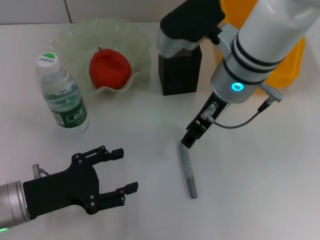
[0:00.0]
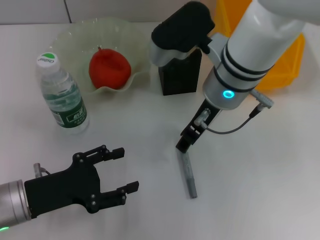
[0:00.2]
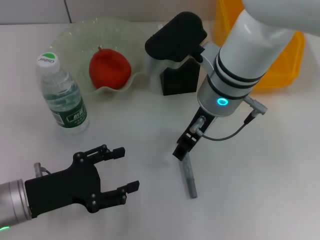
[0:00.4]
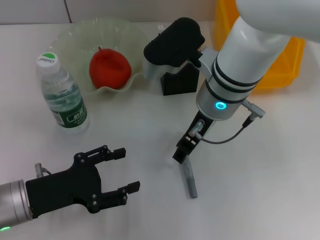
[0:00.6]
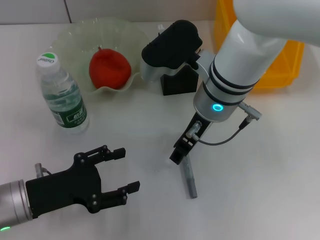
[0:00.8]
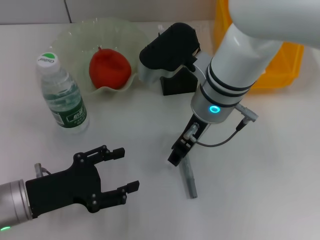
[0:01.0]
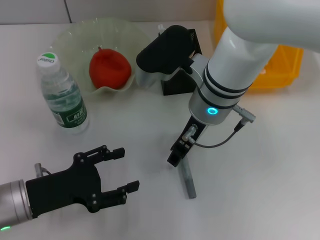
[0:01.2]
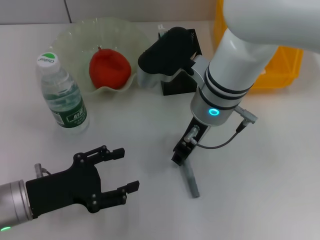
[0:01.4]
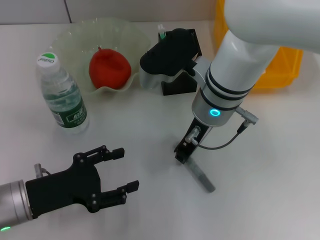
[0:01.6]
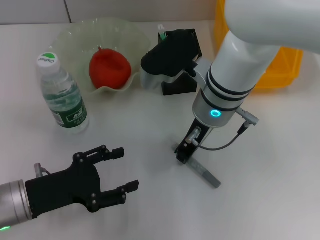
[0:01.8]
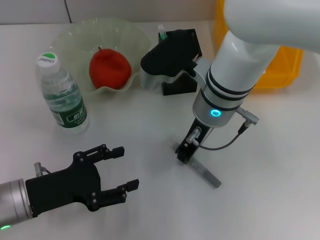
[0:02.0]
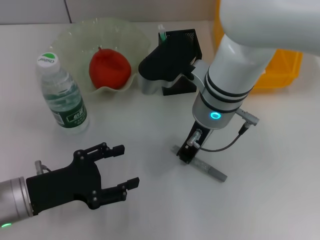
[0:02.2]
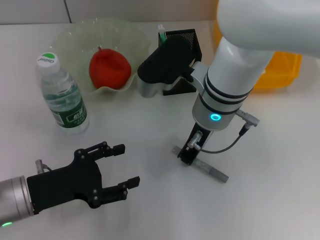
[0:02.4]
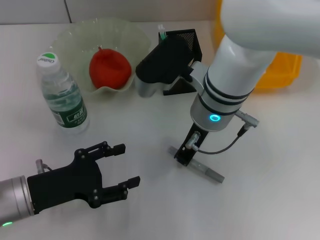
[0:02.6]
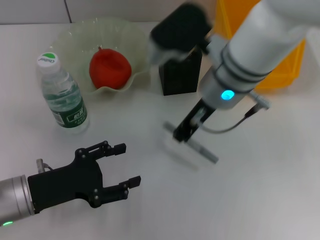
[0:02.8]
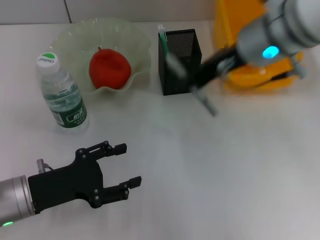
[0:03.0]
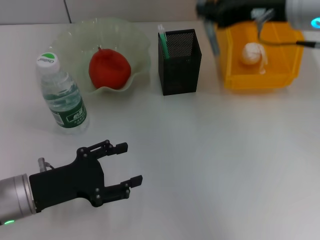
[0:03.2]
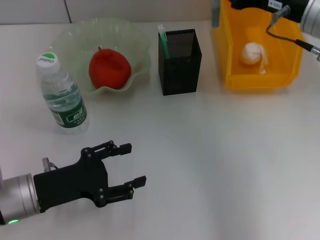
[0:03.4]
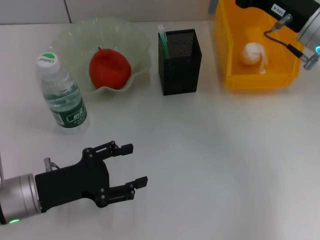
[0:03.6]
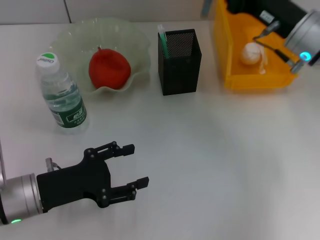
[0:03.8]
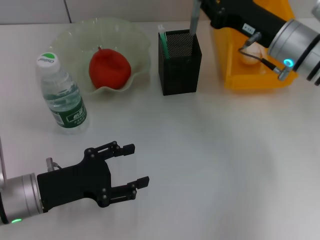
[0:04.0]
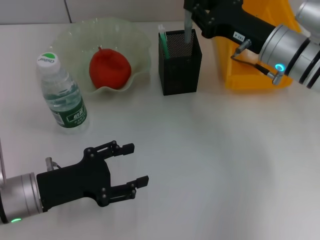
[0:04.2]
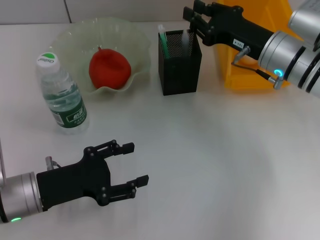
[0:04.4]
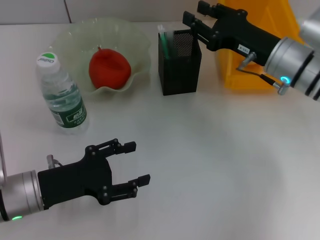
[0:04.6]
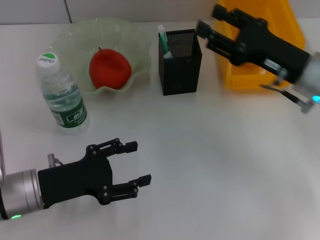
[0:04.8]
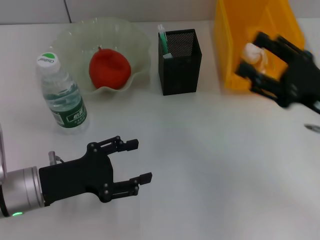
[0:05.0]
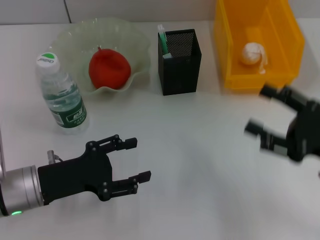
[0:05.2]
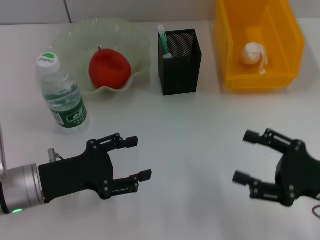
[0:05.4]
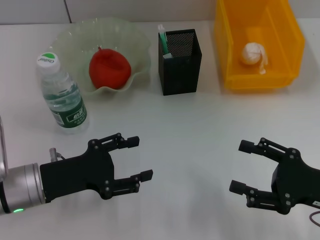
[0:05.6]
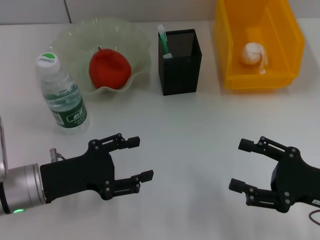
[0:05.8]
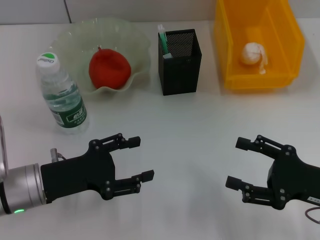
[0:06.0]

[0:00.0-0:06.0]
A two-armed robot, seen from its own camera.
Step, 0:00.0 to 0:02.2: Grab the gray glue with the right hand.
Step, 0:02.4 to 0:04.6: Place the gray glue into the pen holder with the right hand.
0:00.0 to 0:01.6: The grippers stay close to where they were, moving slightly.
0:01.6 to 0:03.0: The right gripper heads upward and to the right, covering some 10 cm, and closes its fingers.
0:03.0 to 0:04.4: The right gripper heads downward and to the right, covering about 15 cm.
0:04.4 to 0:06.0: The right gripper heads backward and to the right, covering roughly 20 cm, and opens its fingers.

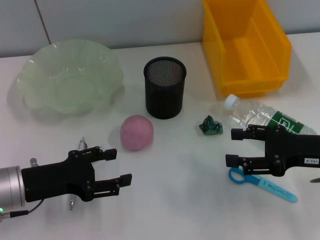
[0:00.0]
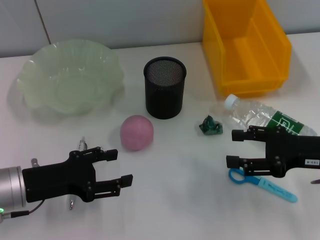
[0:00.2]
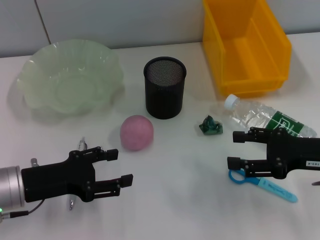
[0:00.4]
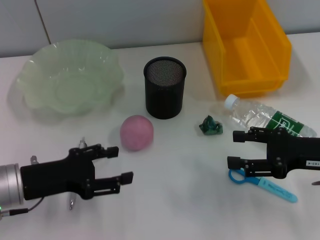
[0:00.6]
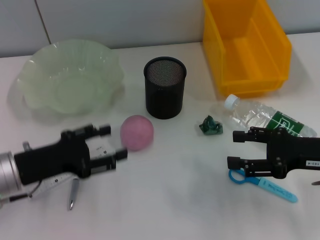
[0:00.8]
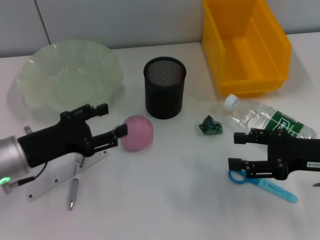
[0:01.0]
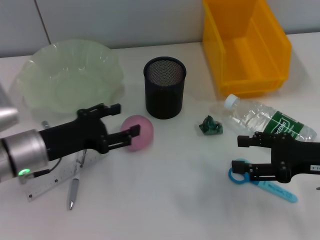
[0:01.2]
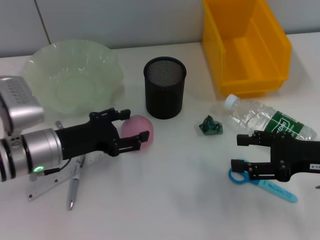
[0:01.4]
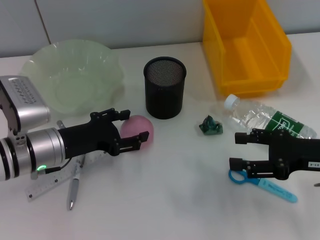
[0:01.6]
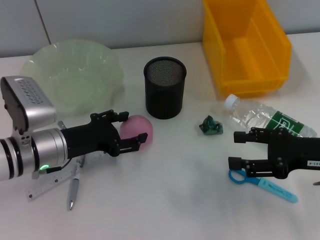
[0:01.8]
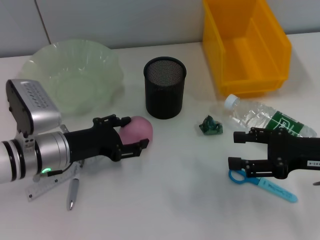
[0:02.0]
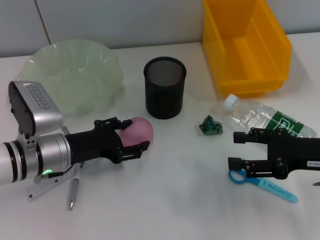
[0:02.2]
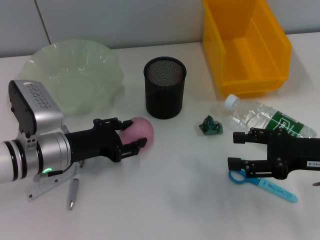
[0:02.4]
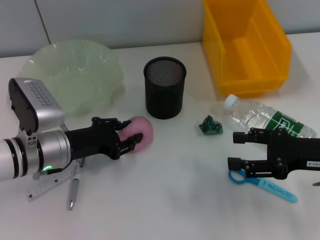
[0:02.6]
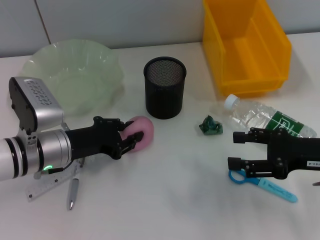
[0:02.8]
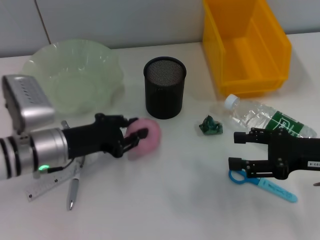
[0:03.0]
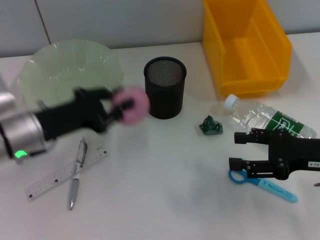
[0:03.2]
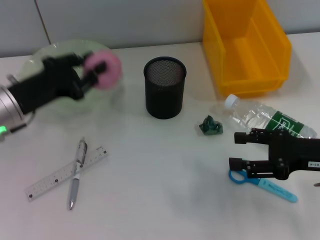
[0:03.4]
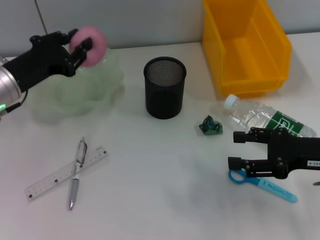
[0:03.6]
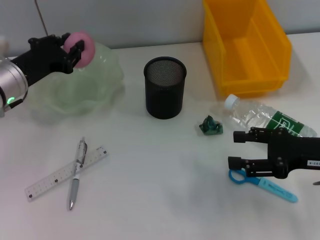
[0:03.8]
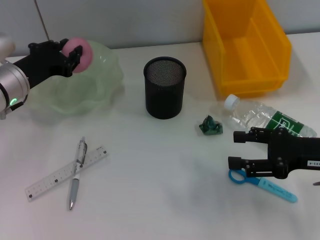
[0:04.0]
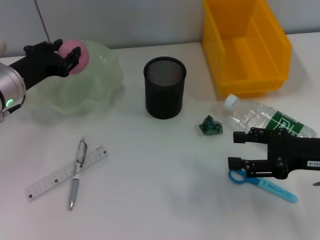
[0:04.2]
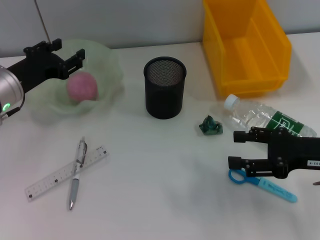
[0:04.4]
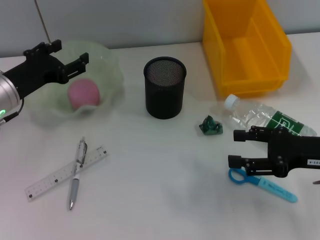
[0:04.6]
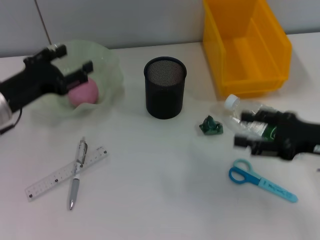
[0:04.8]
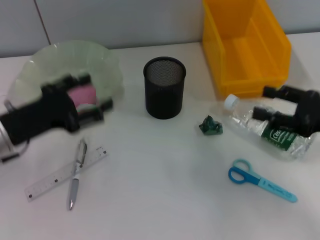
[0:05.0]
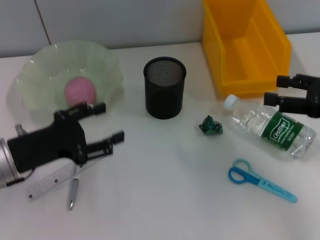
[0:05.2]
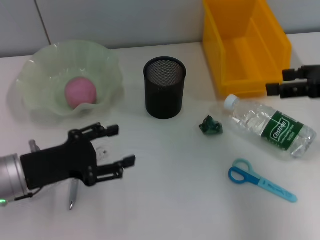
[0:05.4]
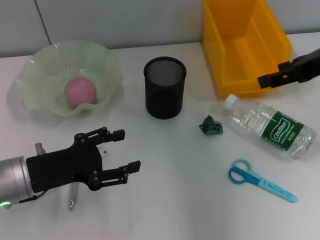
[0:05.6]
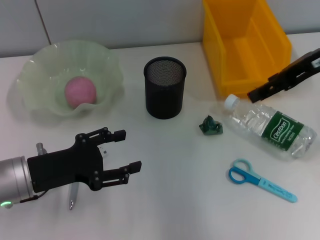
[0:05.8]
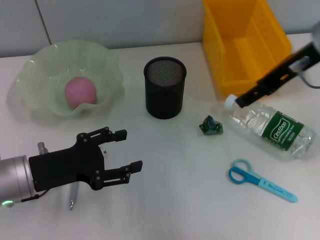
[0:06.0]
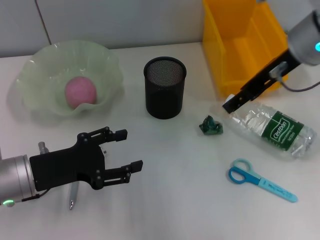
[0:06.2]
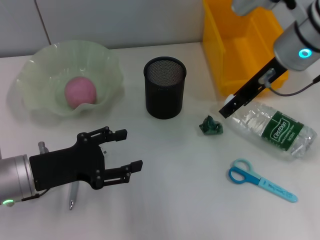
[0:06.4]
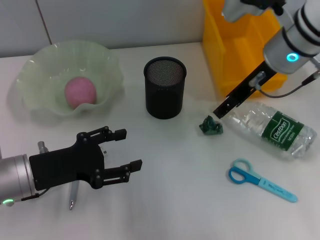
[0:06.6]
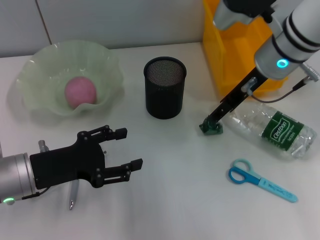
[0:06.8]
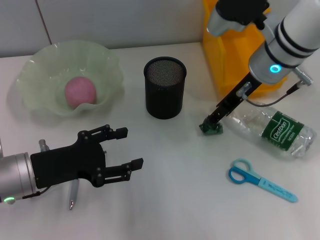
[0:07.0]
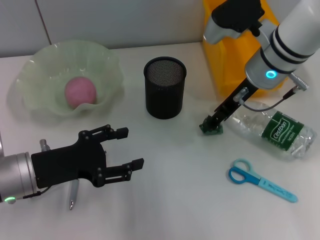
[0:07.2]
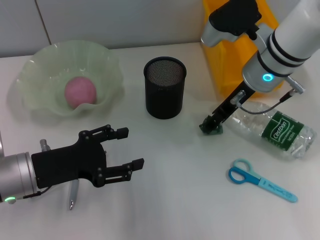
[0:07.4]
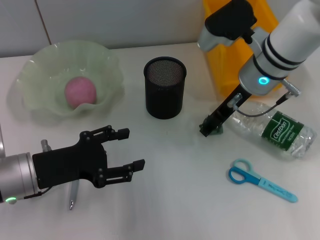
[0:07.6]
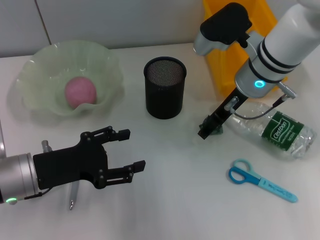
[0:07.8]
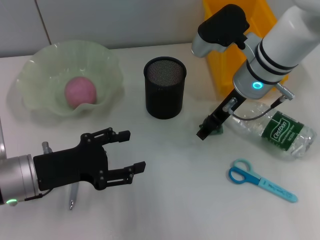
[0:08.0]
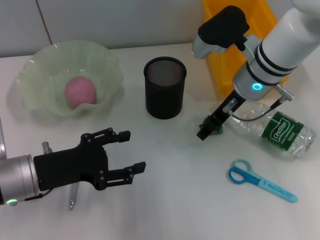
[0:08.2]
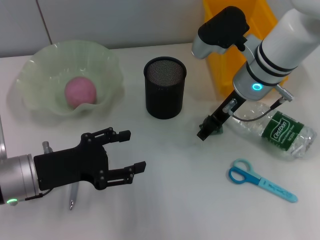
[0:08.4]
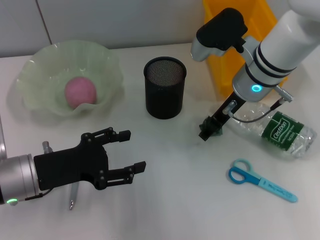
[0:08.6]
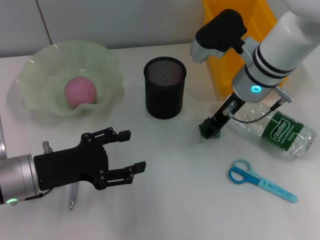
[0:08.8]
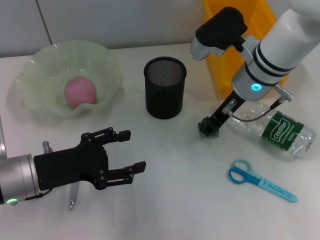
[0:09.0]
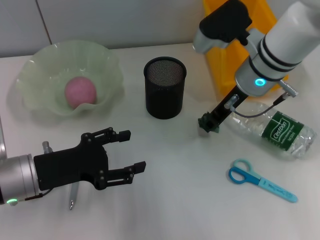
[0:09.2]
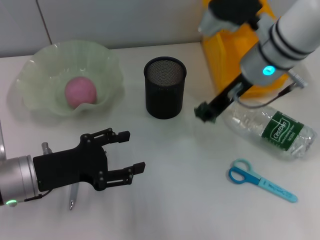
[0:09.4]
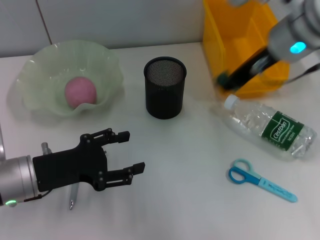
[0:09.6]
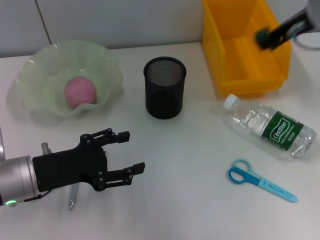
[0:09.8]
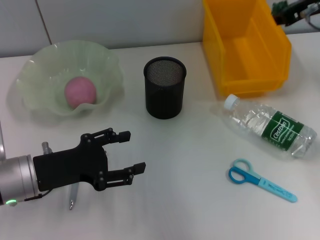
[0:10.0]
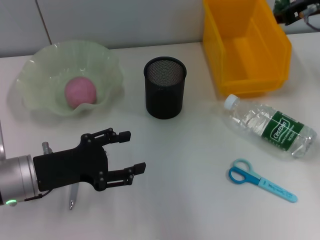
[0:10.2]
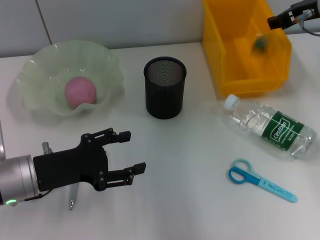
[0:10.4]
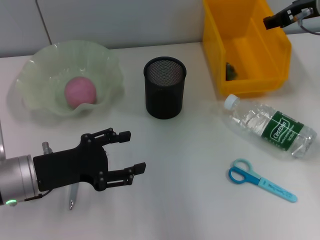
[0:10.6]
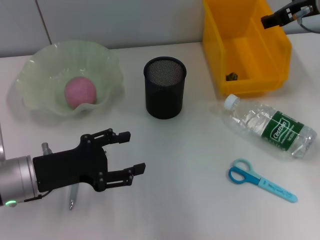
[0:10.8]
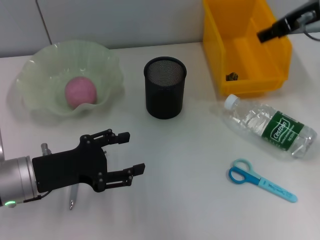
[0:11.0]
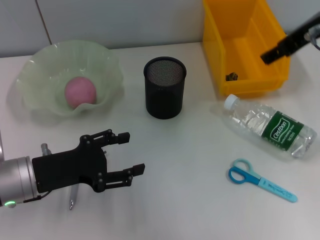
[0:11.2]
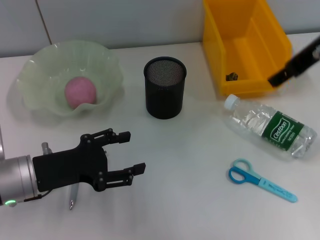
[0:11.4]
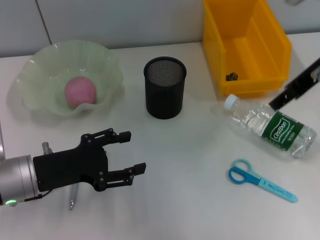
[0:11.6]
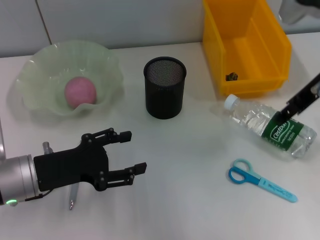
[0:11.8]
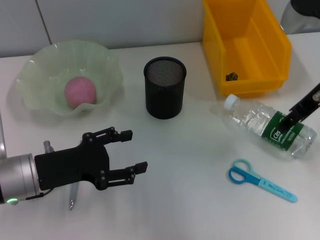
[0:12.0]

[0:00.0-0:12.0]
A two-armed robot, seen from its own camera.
Step, 0:00.0 to 0:02.6: Grab the peach with the left hand.
Step, 0:02.8 to 0:04.4: Place the peach into the fruit bowl with the left hand.
Step, 0:04.8 to 0:08.8: Grab the plastic with the right hand.
Step, 0:09.0 to 0:10.8: Place the plastic into the trash can with the right hand.
0:00.0 to 0:01.6: The left gripper heads forward, covering some 5 cm.
0:01.6 to 0:03.0: The left gripper closes.
0:03.0 to 0:04.4: The left gripper travels forward and to the left by some 10 cm.
0:04.4 to 0:06.0: The left gripper shifts some 10 cm backward, and opens its fingers; the right gripper heads upward, forward and to the left, covering about 20 cm.
0:06.0 to 0:07.6: The right gripper moves downward and to the left, about 10 cm.
0:07.6 to 0:09.0: The right gripper closes its fingers.
0:09.0 to 0:10.4: The right gripper travels to the right and upward by roughly 15 cm.
0:10.4 to 0:12.0: The right gripper goes about 5 cm backward, and opens its fingers.

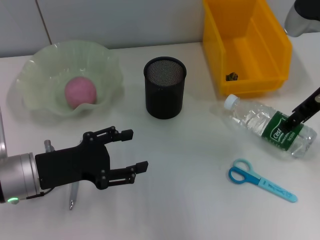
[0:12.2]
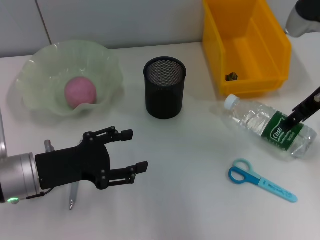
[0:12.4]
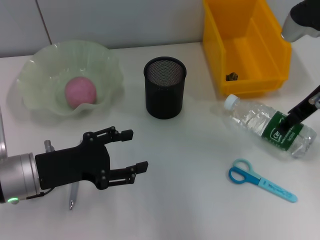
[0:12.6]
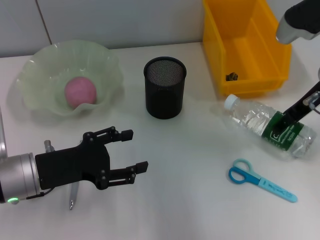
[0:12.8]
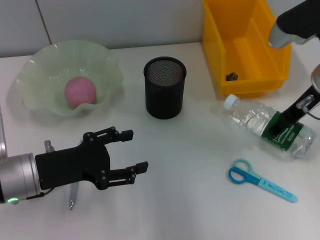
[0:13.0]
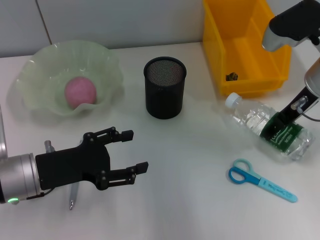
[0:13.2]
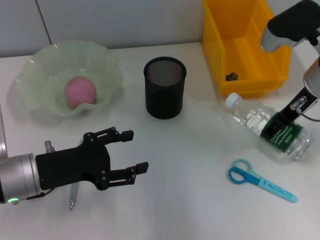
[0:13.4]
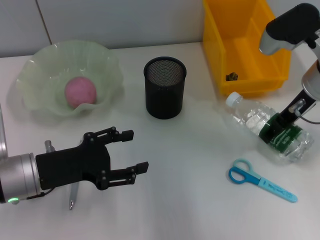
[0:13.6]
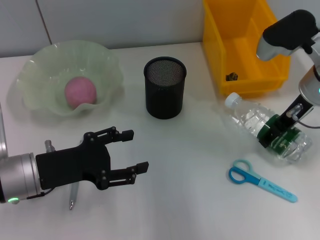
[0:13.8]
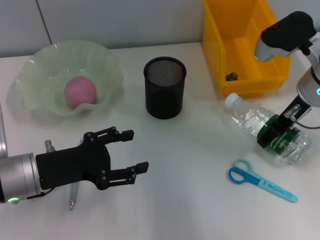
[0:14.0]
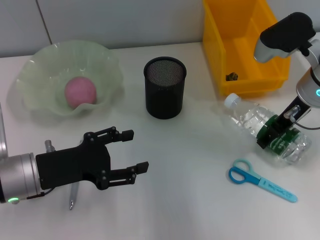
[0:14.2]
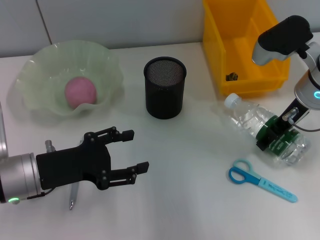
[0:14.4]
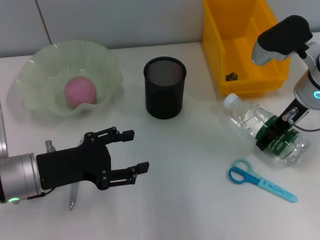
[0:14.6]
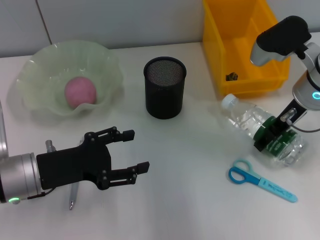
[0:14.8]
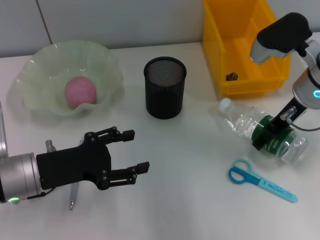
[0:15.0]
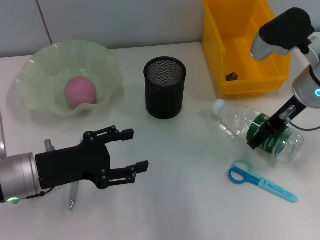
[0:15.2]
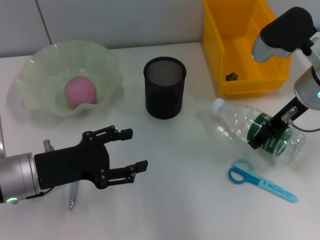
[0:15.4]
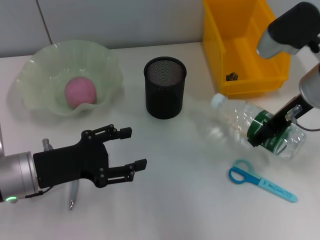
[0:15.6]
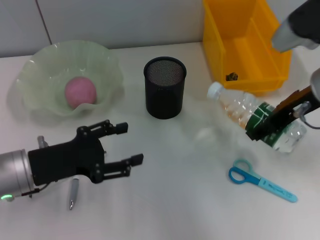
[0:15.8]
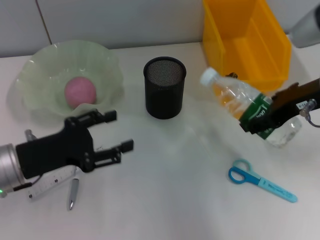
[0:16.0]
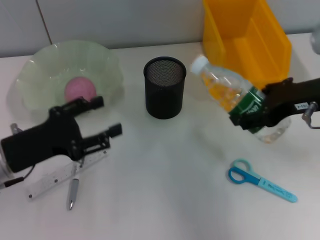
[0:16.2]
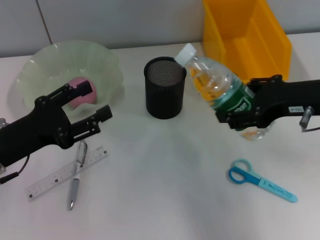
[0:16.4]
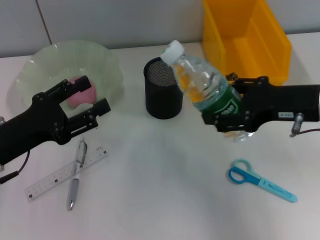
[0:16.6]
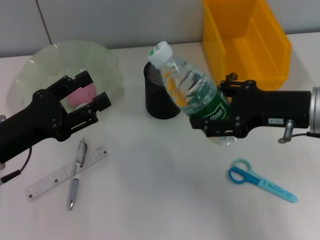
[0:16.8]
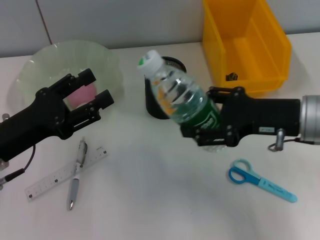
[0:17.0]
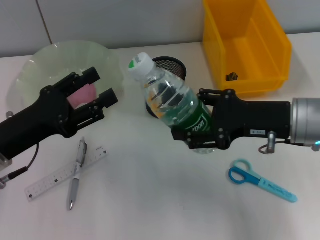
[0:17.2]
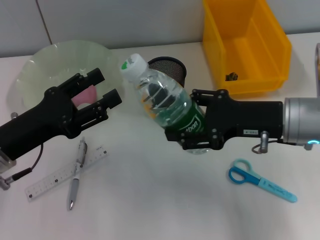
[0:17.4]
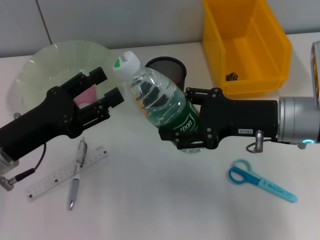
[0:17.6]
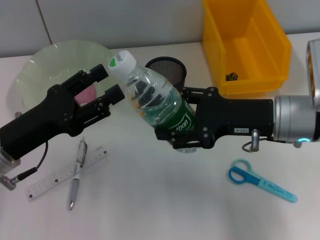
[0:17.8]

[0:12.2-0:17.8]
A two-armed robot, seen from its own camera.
Step, 0:12.2 to 0:14.8: Grab the water bottle with the right hand.
0:12.2 to 0:13.6: The right gripper moves downward, about 5 cm.
0:13.6 to 0:15.0: There are only small adjustments of the grippers.
0:15.0 to 0:16.4: The right gripper goes about 10 cm backward.
0:16.4 to 0:17.8: The right gripper heads downward, covering some 5 cm.
